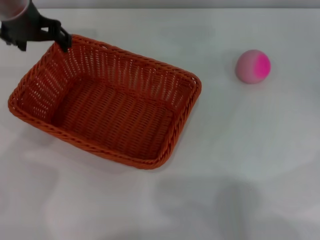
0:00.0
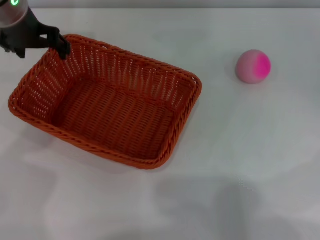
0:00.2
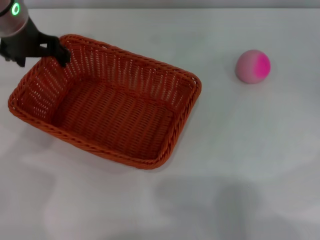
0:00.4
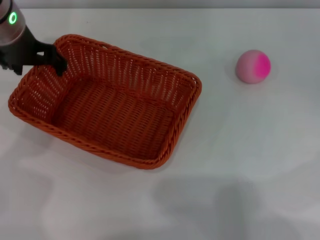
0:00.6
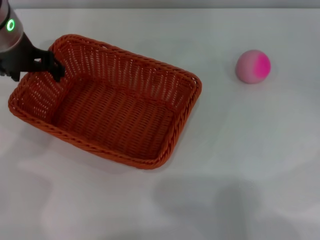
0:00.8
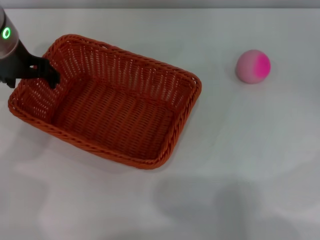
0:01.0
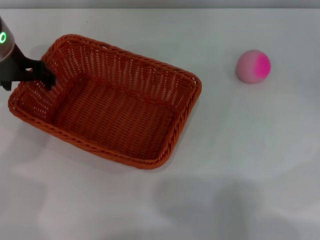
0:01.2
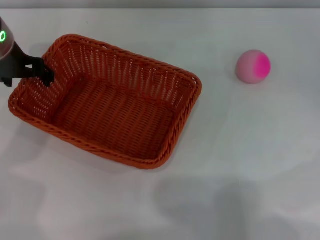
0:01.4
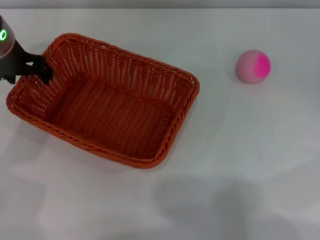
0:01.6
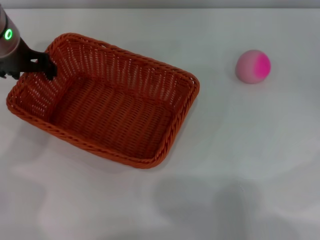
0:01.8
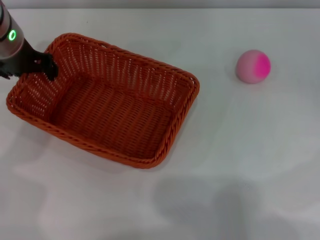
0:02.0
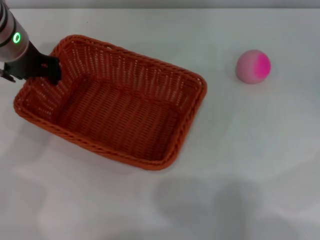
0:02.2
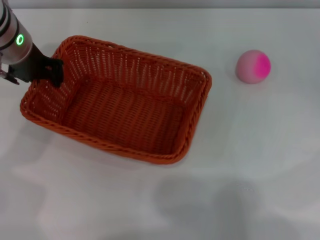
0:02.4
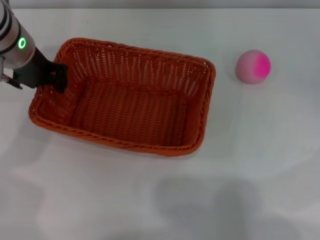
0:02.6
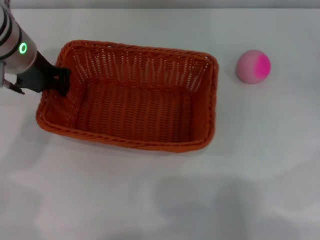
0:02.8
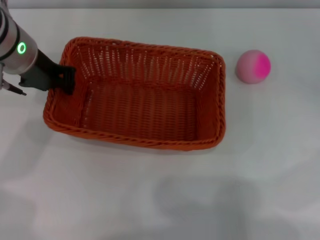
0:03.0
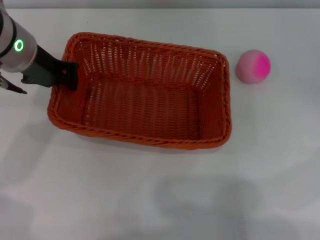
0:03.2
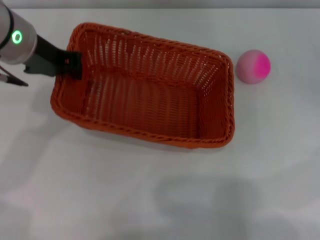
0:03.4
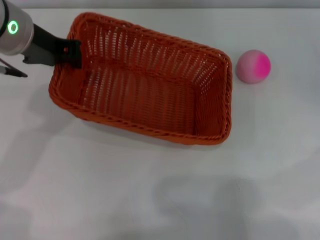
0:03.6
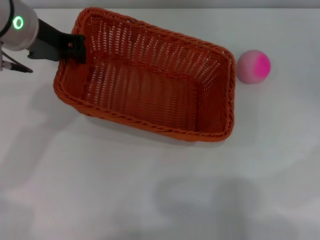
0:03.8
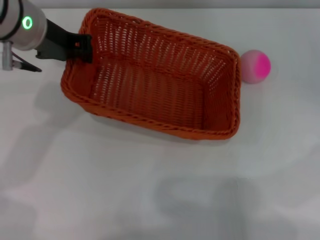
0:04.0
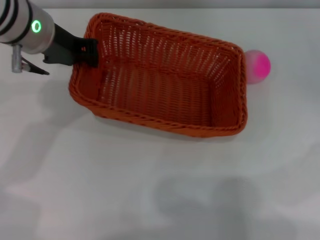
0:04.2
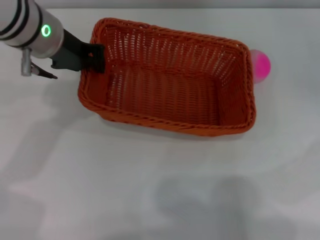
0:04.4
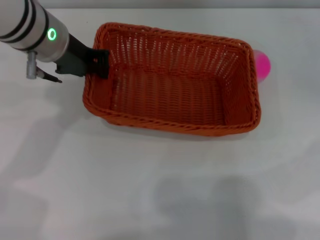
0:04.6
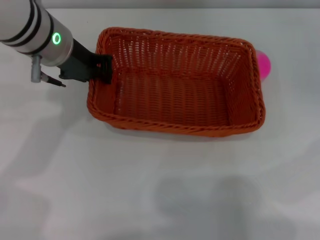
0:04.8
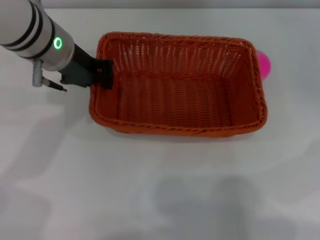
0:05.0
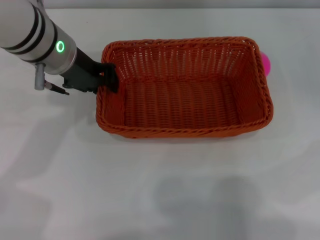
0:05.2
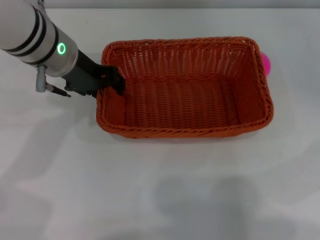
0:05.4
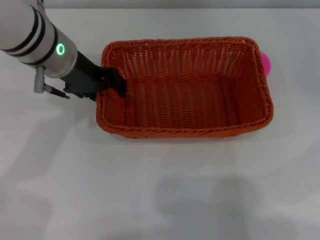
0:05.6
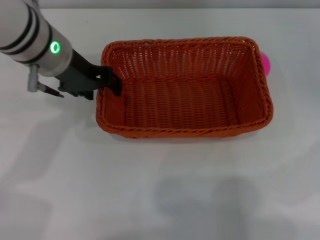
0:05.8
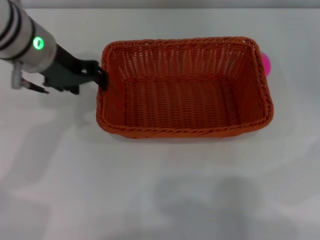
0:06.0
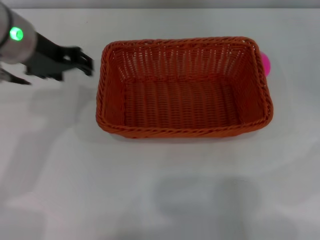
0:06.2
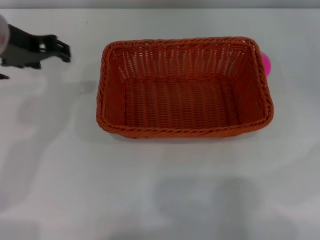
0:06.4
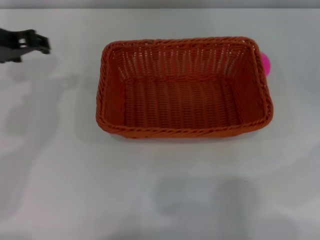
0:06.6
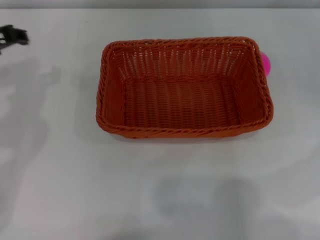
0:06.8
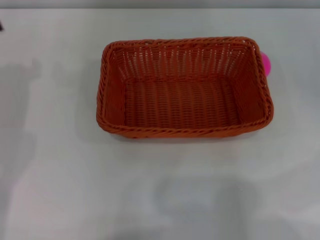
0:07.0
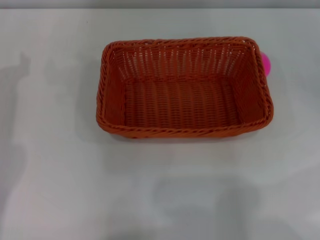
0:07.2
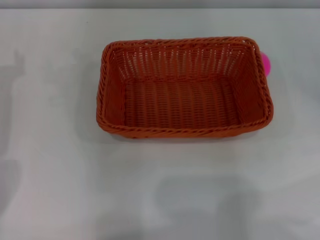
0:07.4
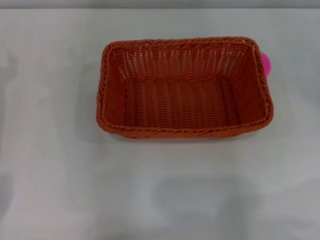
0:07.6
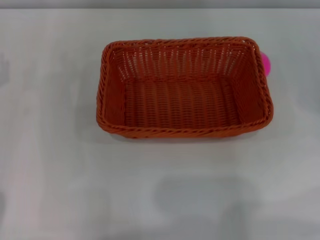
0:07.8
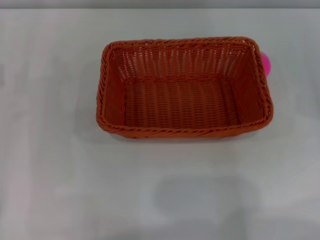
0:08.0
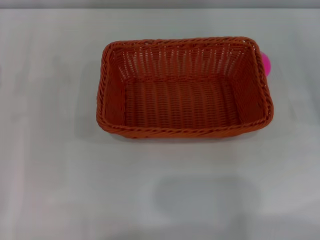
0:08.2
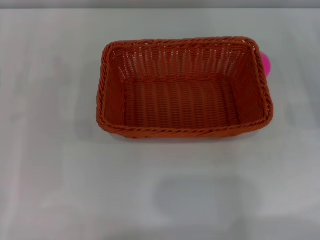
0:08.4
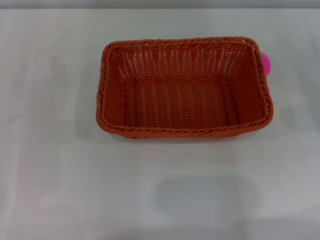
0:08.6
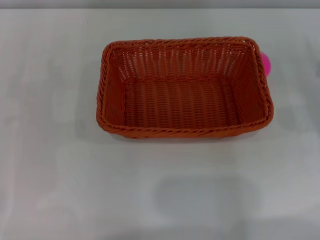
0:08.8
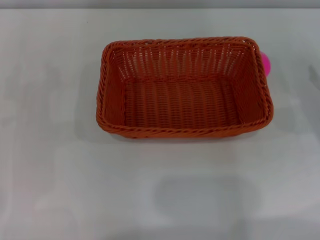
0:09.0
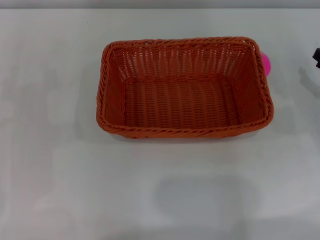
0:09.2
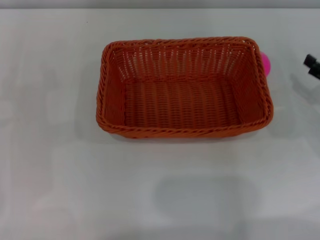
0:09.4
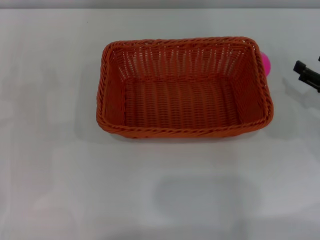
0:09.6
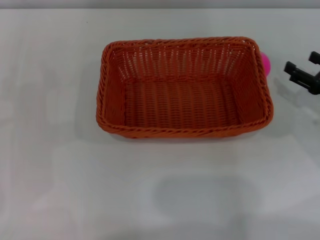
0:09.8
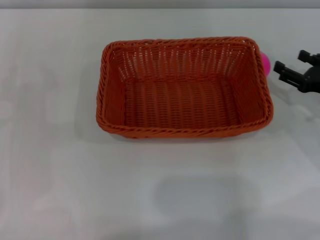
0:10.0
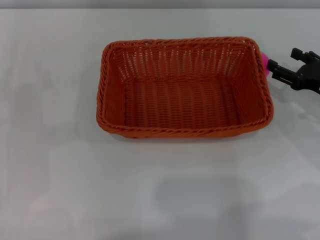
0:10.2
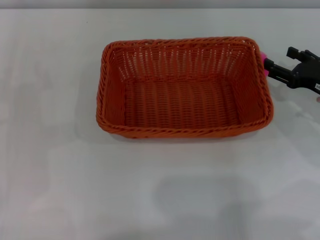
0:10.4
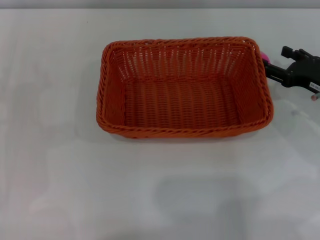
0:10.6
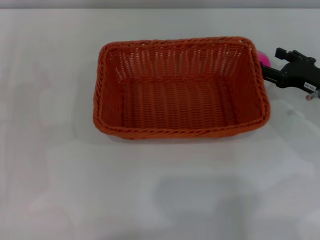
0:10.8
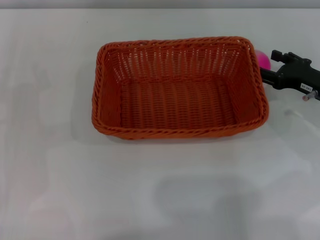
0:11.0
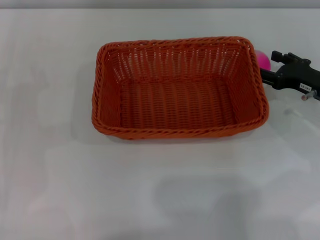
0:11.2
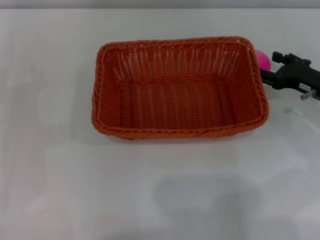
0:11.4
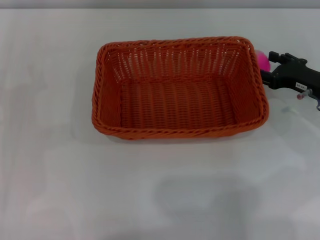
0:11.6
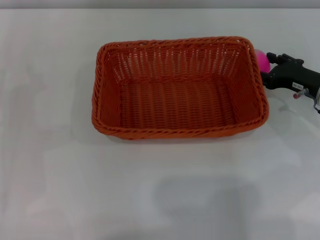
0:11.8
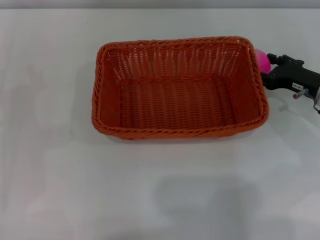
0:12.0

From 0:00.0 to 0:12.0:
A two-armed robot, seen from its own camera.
Step, from 0:00.0 to 0:03.8: Pick up the light basket with the left gripper.
From 0:00.0 to 0:01.6: The left gripper shifts by some 5 cm.
From 0:01.6 to 0:03.0: The left gripper closes.
From 0:04.4 to 0:06.0: The left gripper opens its fingers.
From 0:06.0 to 0:07.6: The left gripper moves to the left and downward, roughly 15 cm.
From 0:09.0 to 0:10.4: The right gripper moves to the left, roughly 5 cm.
From 0:10.4 to 0:12.0: There are only small adjustments of the grippers.

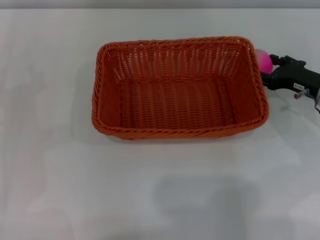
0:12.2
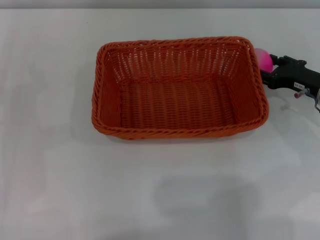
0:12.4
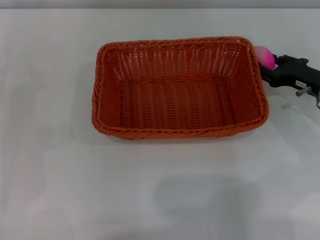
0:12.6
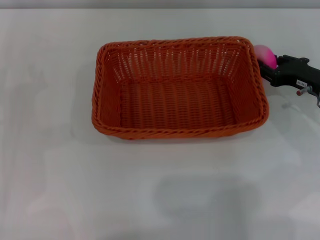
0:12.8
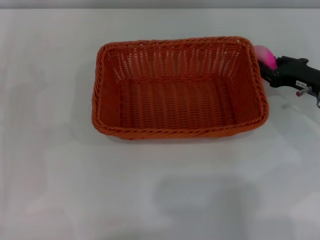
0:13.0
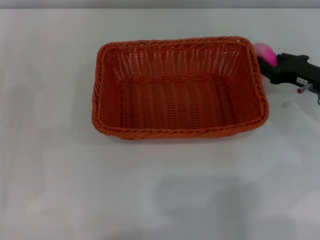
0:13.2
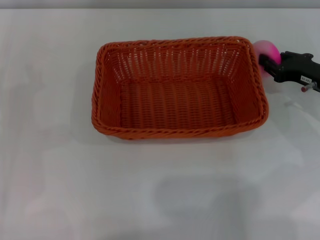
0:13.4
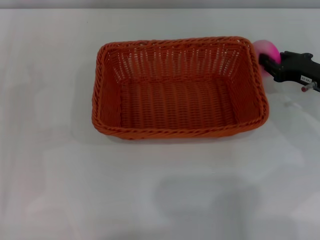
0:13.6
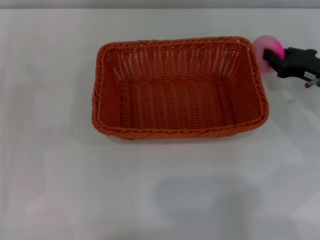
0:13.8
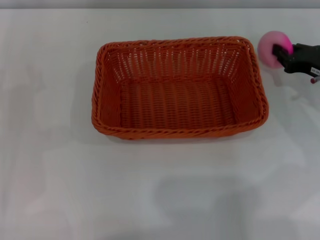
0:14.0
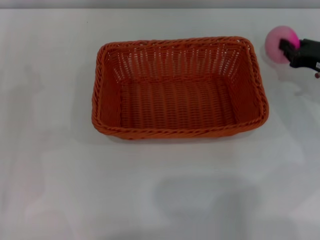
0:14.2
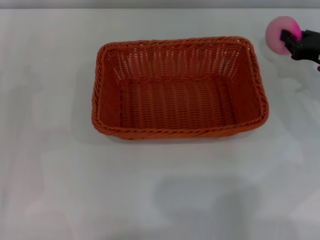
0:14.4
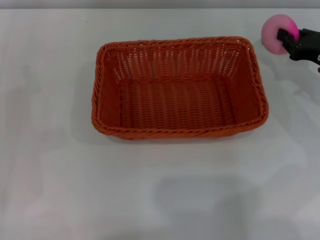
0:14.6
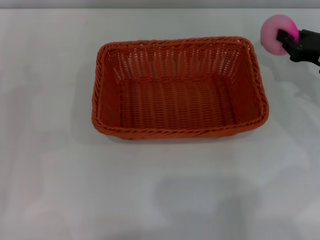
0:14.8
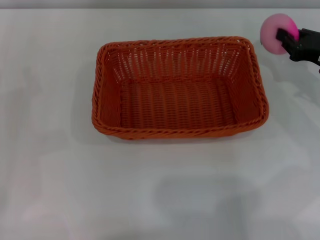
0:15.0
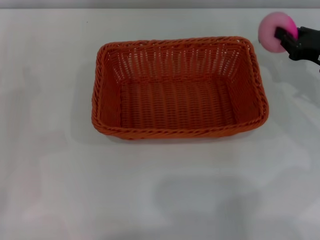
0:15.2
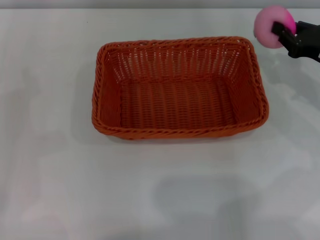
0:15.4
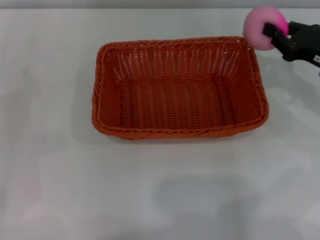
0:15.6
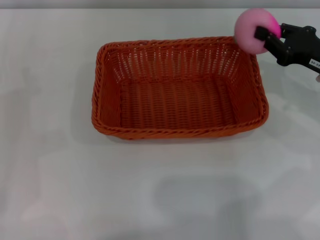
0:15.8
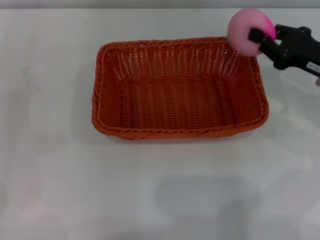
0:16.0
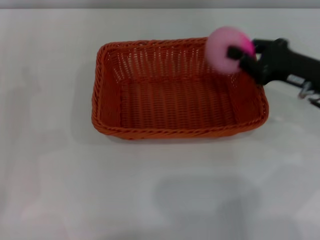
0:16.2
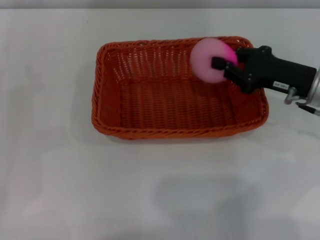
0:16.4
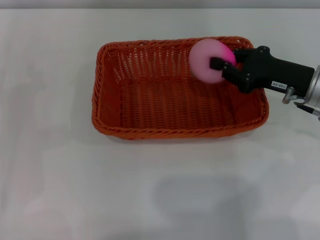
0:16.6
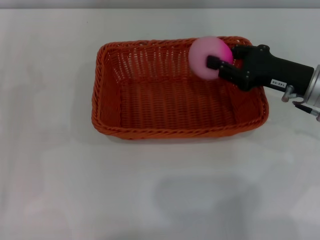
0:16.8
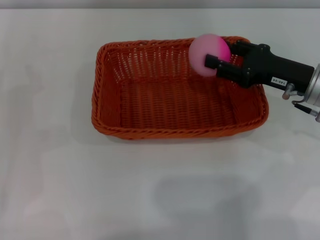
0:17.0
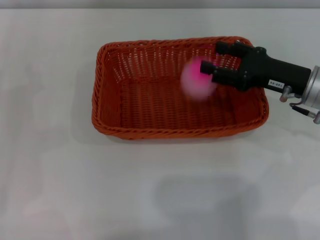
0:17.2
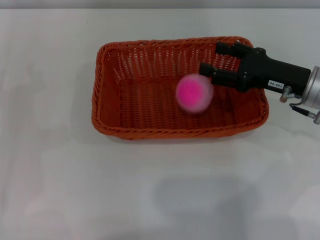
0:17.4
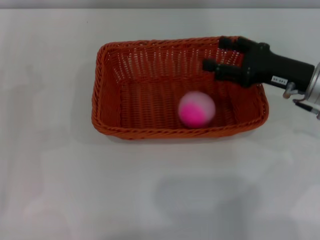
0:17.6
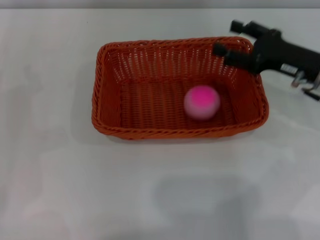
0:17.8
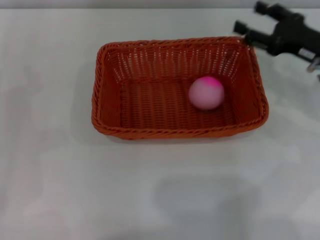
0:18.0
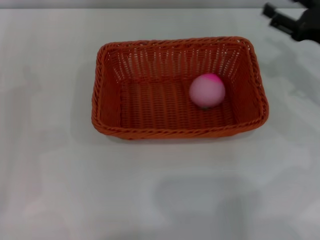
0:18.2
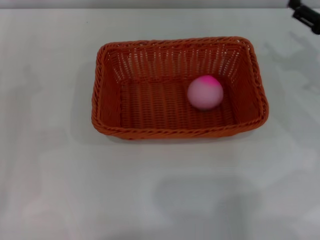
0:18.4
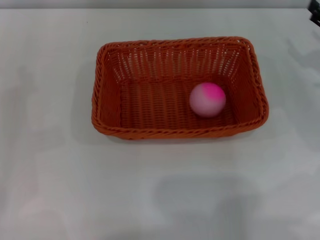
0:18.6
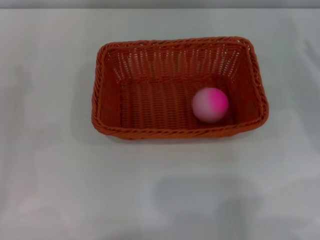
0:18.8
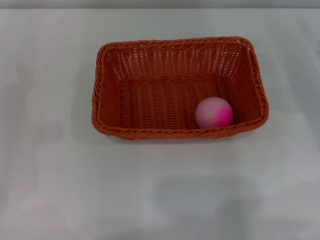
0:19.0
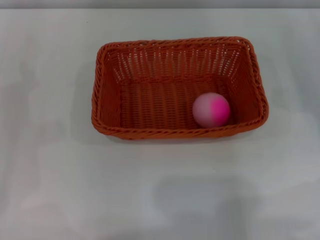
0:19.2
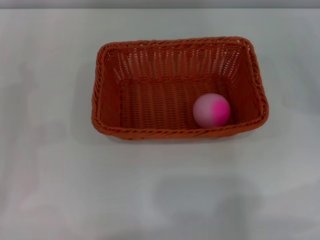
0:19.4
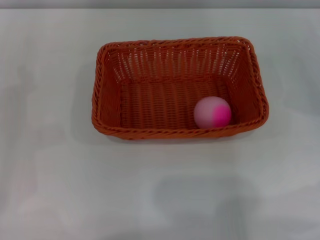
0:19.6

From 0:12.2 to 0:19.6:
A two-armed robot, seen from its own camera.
Step, from 0:12.2 to 0:14.6: Pick up the peach with the left gripper.
Step, from 0:14.8 to 0:17.2: Place the peach into the basket with the left gripper.
From 0:12.2 to 0:13.6: The right gripper closes up.
From 0:13.6 to 0:15.2: The grippers make only small movements.
From 0:15.2 to 0:16.6: The right gripper is displaced to the left by roughly 5 cm.
From 0:16.6 to 0:18.2: The right gripper heads to the right, covering some 5 cm, and opens.
From 0:18.2 to 0:19.6: The right gripper travels to the right and downward by about 10 cm.

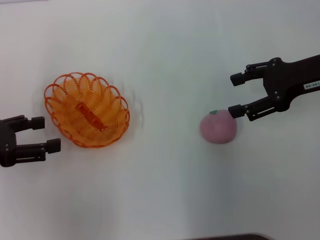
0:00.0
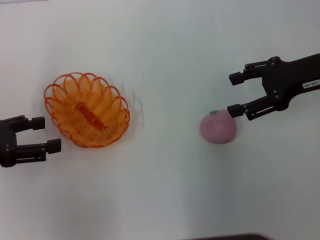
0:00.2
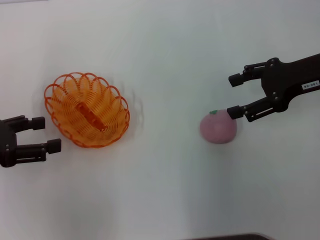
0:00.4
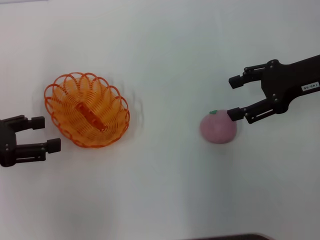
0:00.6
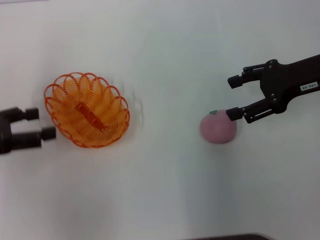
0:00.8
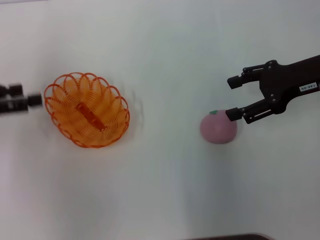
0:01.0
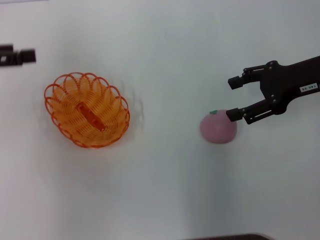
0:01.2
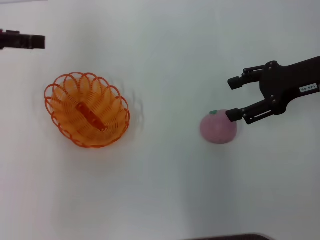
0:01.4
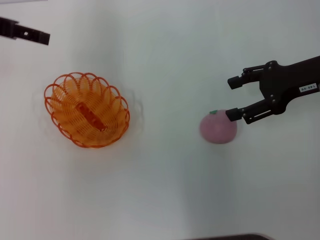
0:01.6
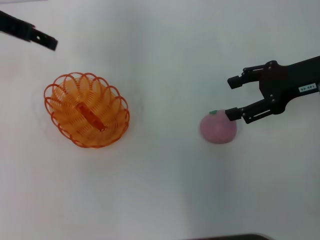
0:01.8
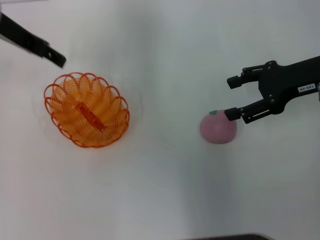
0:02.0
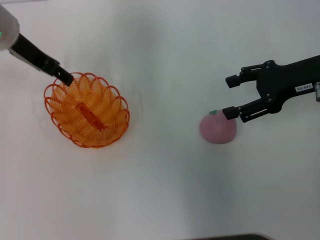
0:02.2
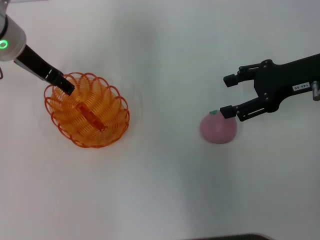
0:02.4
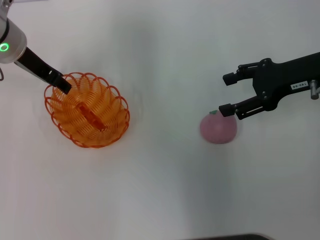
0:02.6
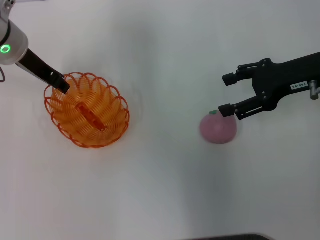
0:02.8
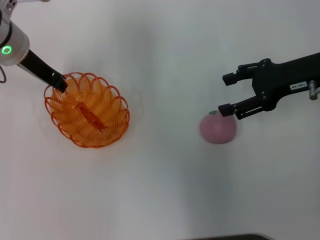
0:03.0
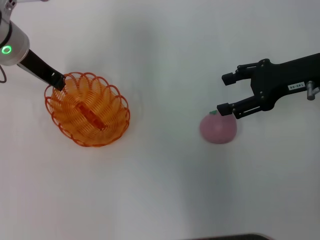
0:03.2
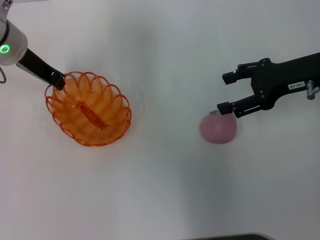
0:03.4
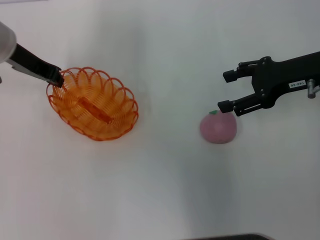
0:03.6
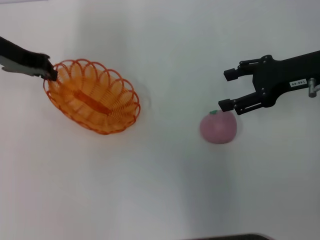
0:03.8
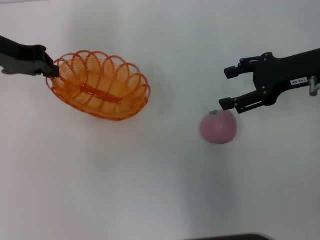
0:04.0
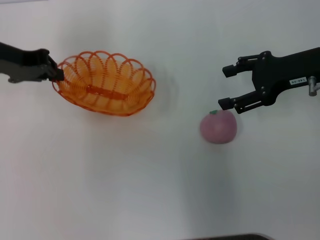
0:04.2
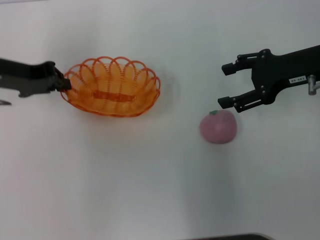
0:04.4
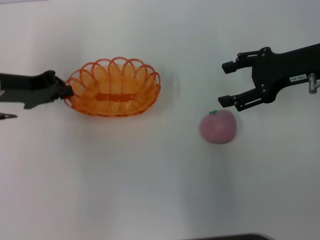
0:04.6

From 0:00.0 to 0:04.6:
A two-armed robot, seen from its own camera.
Step, from 0:00.0 to 0:03.6: Pick up the basket with the left gripper.
From 0:00.0 to 0:01.6: The left gripper shifts approximately 20 cm forward and upward.
From 0:01.6 to 0:03.0: The left gripper goes approximately 10 cm downward and to the right, and closes.
From 0:03.0 to 0:04.6: The left gripper heads to the left and backward, covering approximately 10 cm, and closes its fingers.
